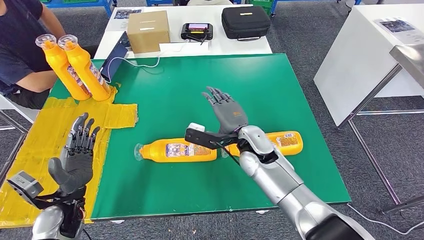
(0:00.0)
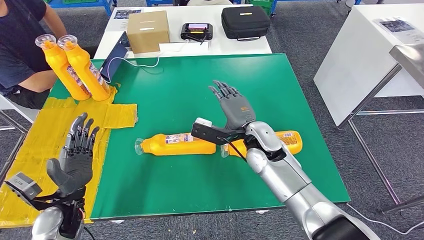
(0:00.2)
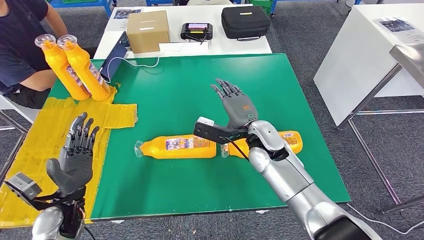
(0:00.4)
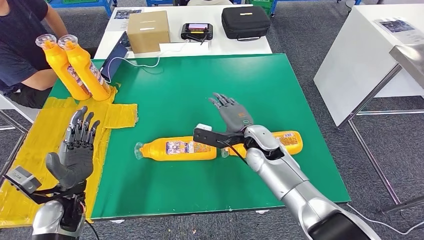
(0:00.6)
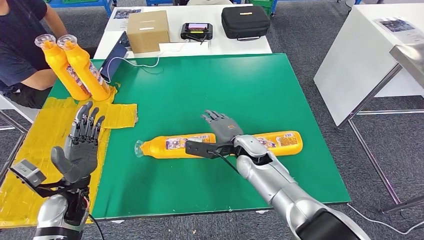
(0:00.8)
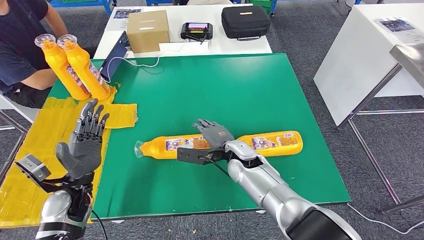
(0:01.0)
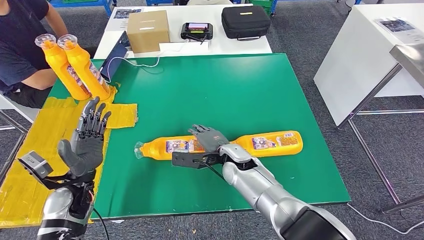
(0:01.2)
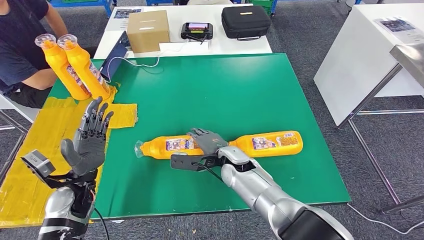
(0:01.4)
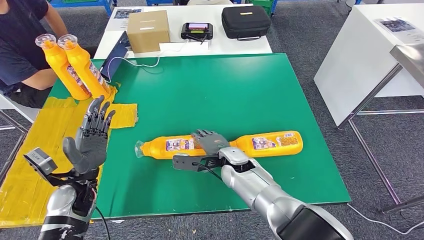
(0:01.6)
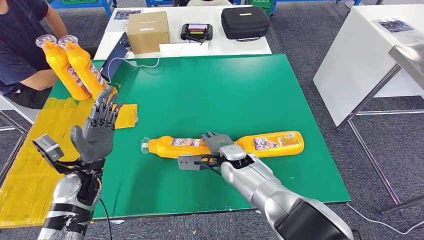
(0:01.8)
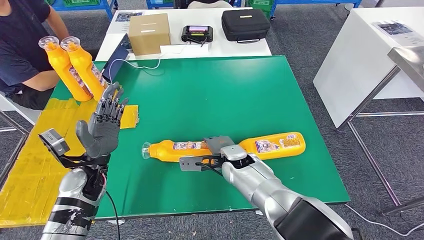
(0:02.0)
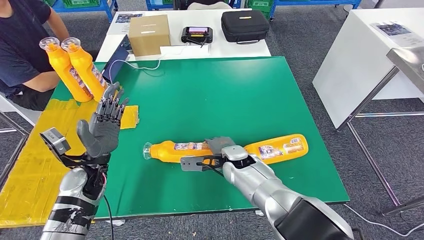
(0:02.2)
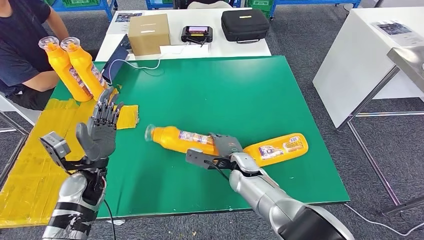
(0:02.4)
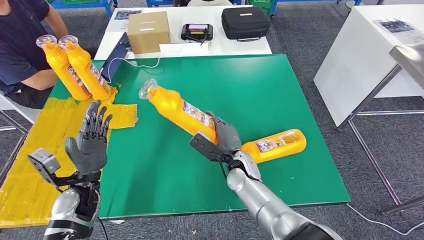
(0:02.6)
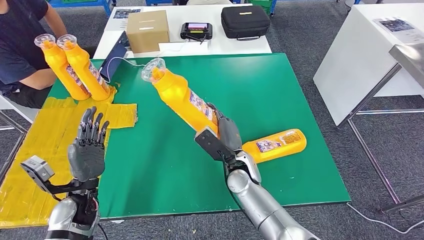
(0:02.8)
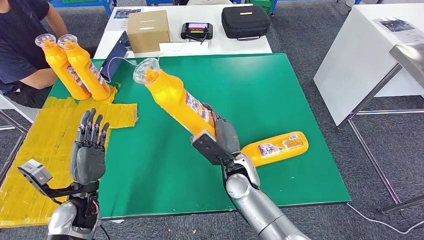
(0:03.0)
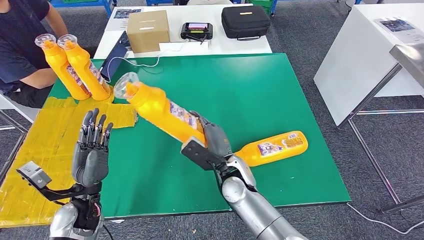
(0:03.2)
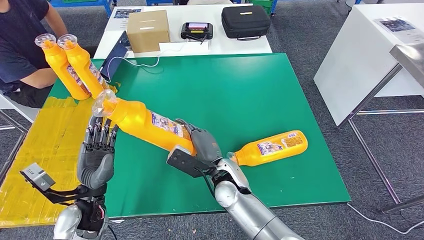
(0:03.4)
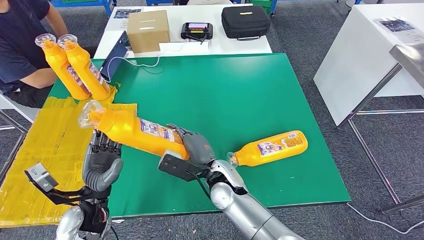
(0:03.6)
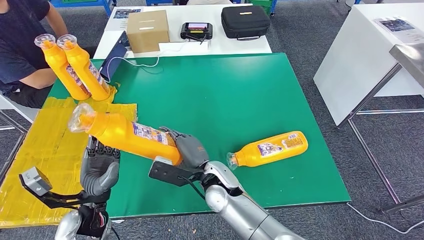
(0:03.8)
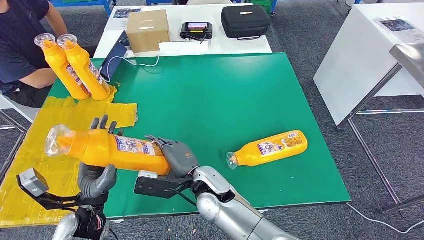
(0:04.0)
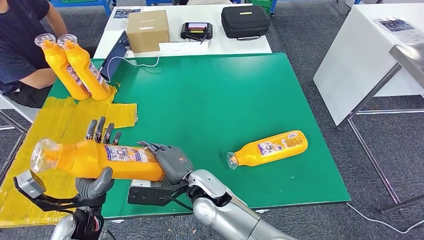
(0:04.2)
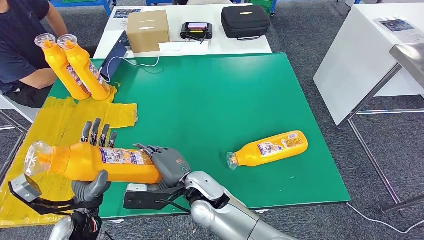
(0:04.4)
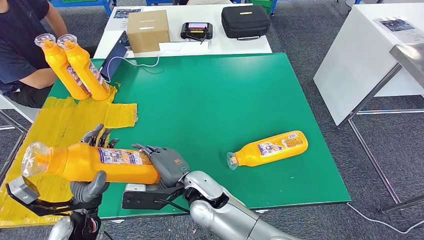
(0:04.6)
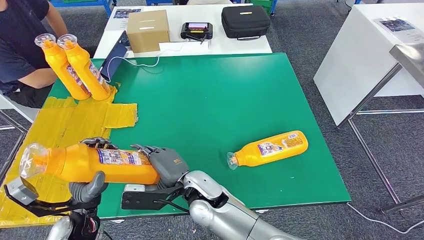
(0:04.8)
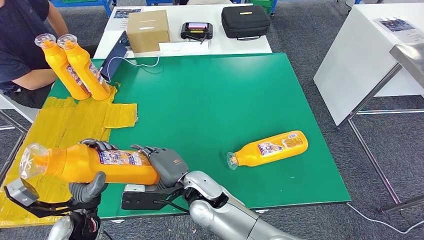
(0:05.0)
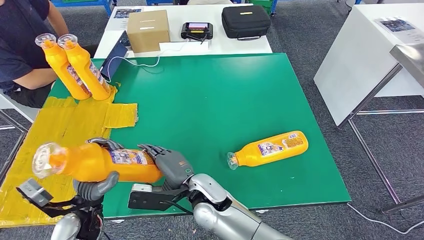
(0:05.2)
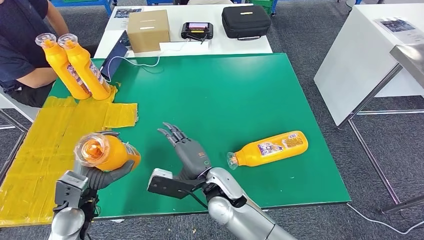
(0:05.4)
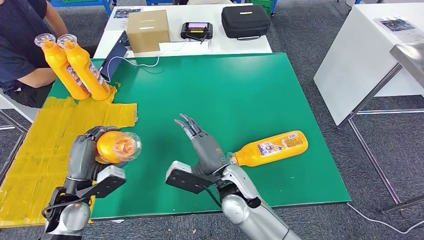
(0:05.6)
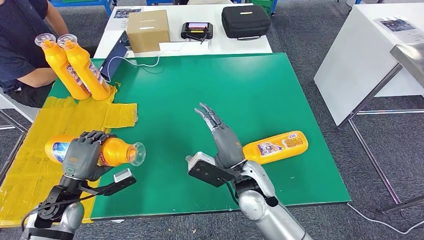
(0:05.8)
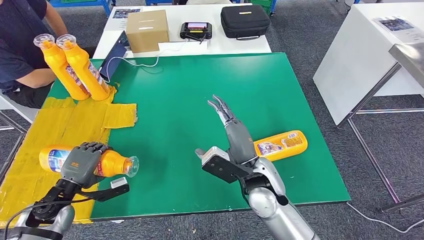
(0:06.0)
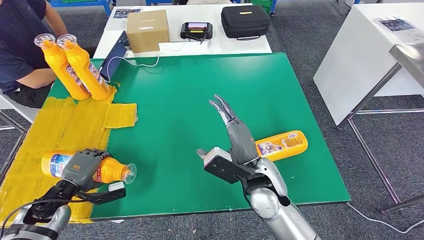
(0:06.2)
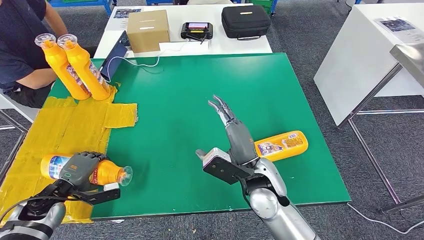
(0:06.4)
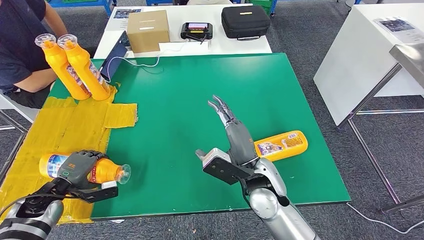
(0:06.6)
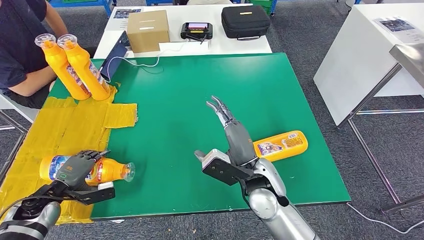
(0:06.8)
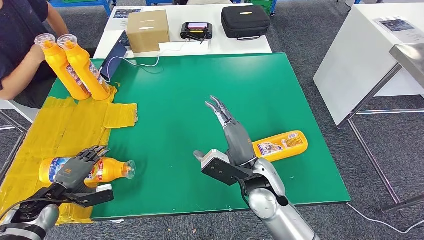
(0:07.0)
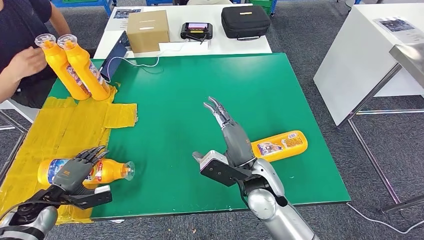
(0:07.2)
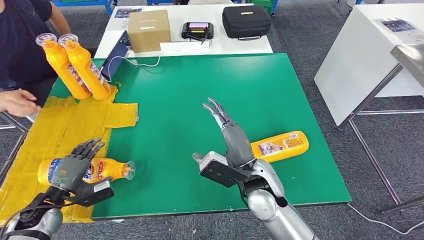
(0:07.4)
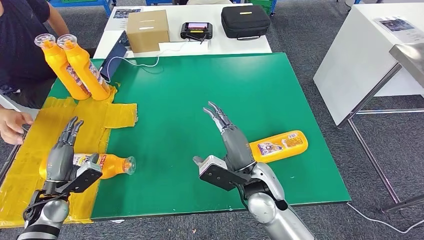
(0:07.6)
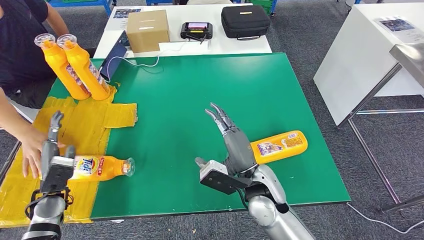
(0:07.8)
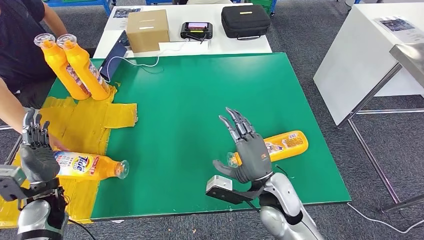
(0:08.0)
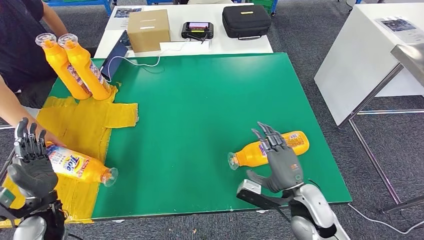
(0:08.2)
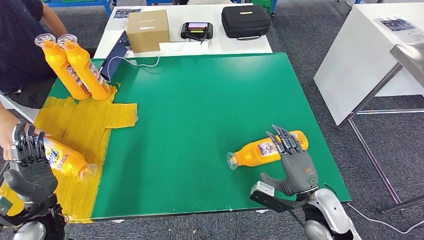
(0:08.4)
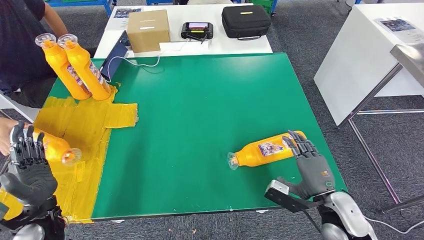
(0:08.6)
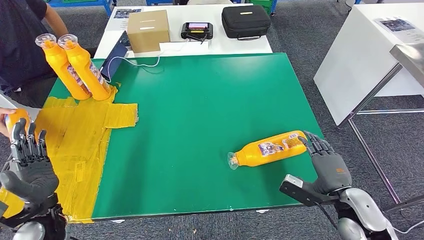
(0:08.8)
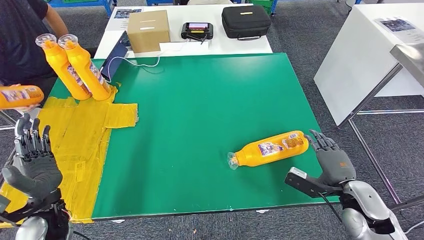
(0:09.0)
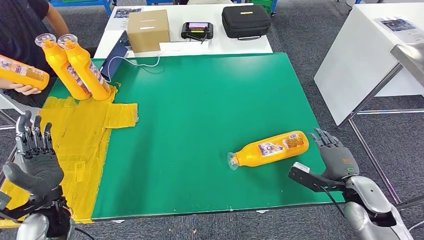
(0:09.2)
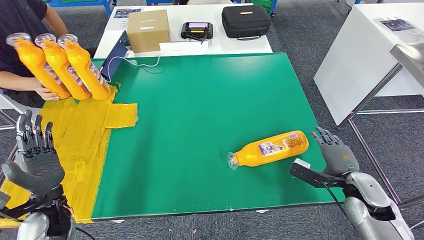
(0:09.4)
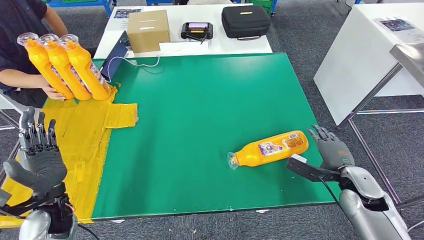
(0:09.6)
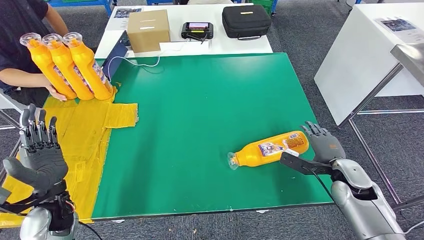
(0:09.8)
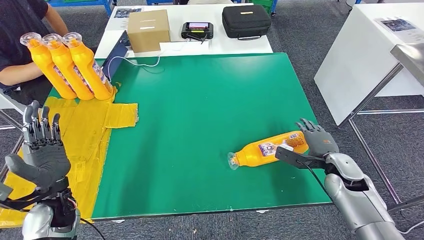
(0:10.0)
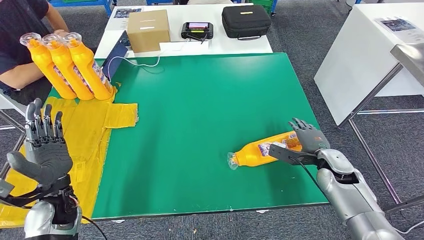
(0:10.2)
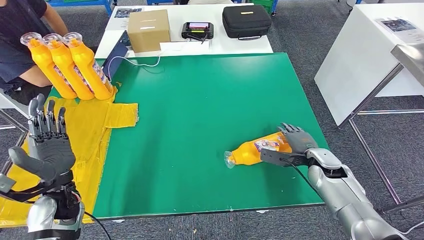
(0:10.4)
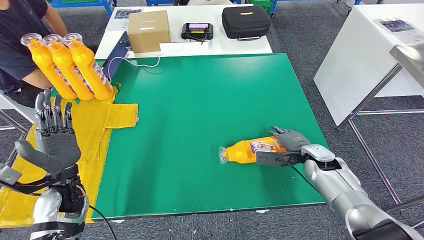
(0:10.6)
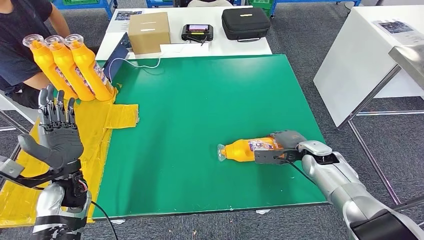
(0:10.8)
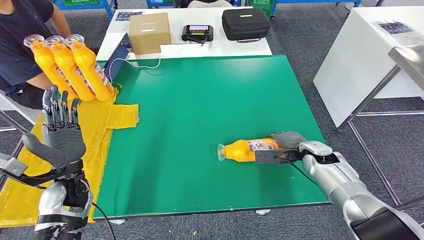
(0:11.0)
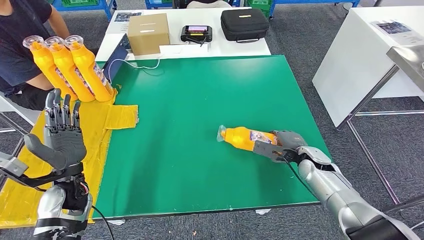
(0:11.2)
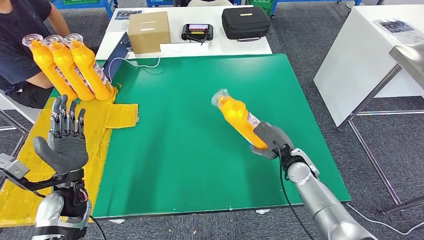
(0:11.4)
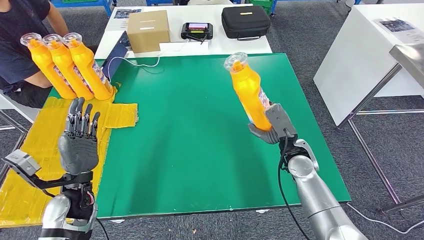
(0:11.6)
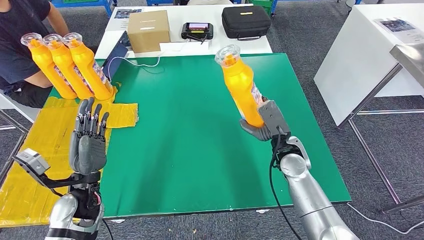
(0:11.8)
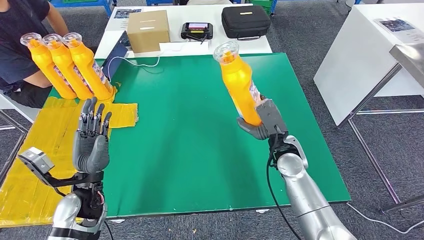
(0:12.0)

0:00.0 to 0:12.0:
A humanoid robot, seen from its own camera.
Step, 0:00.4 to 0:02.8: Pick up the bottle from the table.
Step, 0:03.4 to 0:07.4: Flip the bottle to face forward.
0:01.6 to 0:03.0: The right hand moves roughly 5 cm.
0:03.0 to 0:04.4: The right hand goes about 10 cm to the left and backward.
0:09.0 to 0:10.4: The right hand travels forward by some 10 cm.

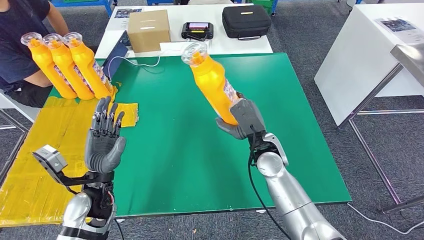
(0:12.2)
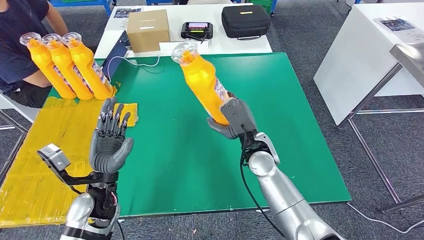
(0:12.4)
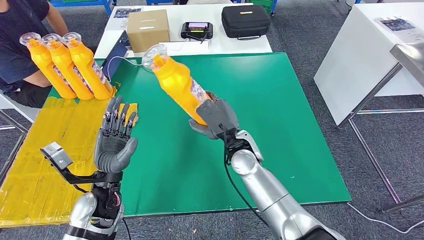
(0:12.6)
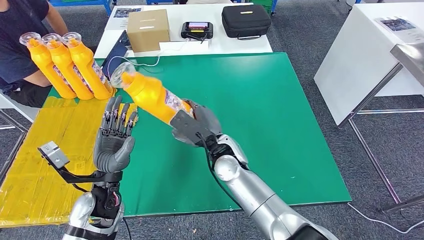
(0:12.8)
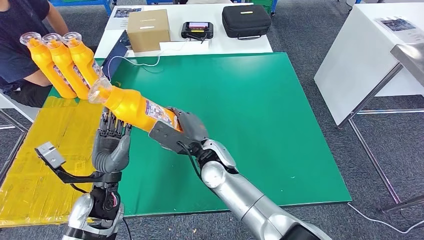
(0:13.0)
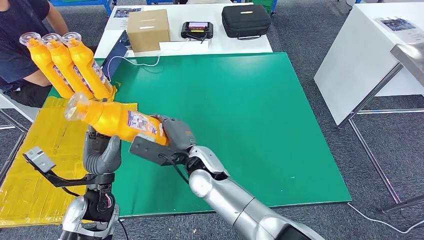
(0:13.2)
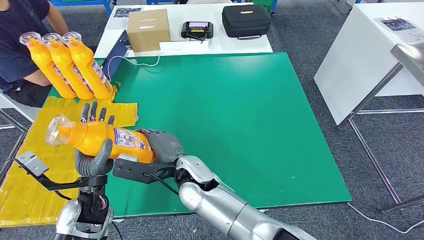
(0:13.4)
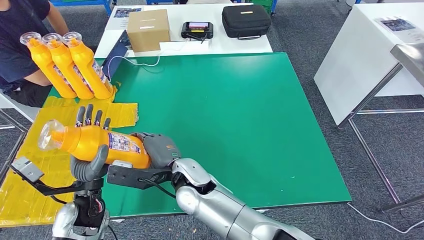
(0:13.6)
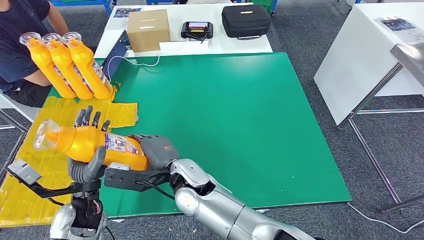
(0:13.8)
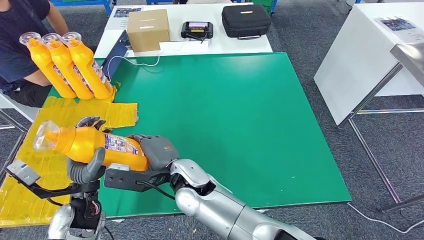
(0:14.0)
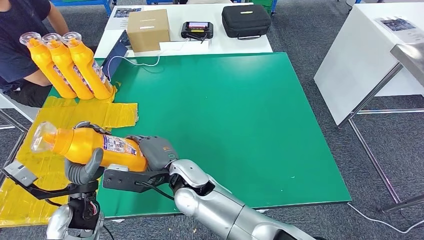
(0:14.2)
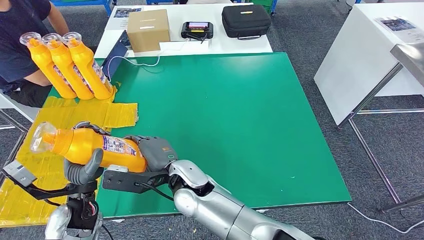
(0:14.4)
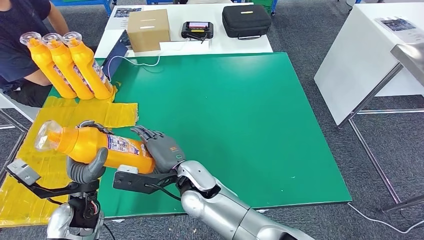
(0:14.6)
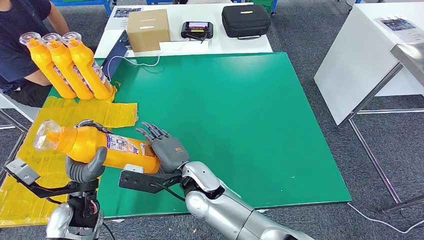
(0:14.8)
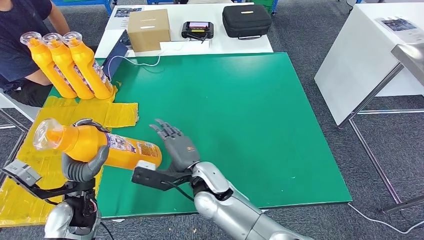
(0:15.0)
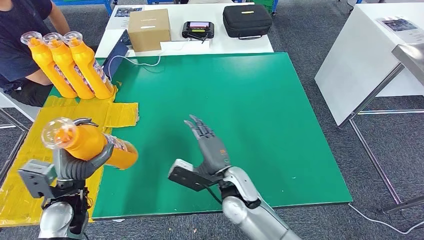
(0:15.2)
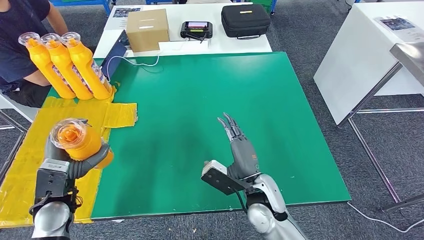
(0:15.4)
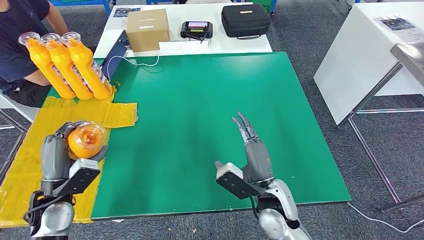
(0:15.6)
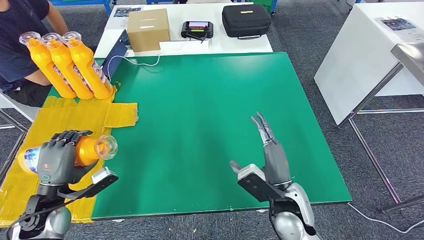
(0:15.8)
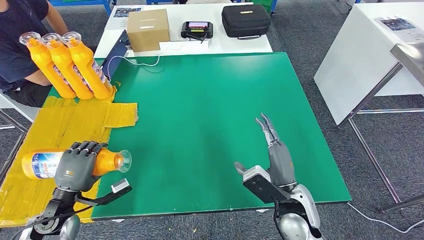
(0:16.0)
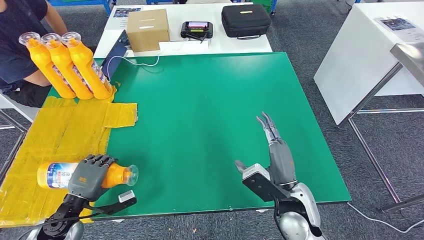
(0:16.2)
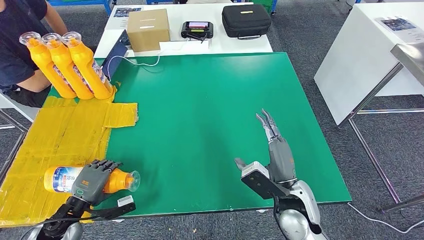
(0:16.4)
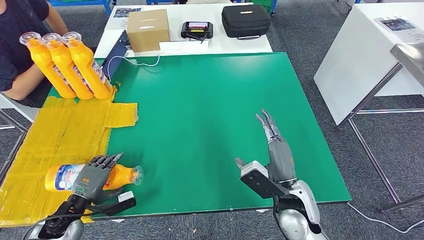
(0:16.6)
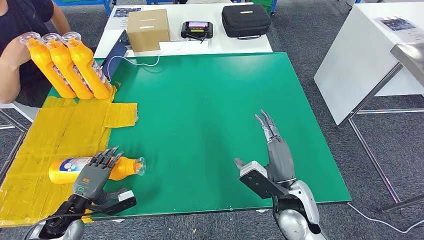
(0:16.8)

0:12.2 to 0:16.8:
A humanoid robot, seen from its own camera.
Step, 0:13.4 to 0:16.8: Flip the bottle to face forward.
0:13.8 to 0:15.2: The right hand travels to the right by approximately 10 cm.
